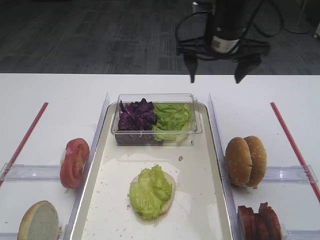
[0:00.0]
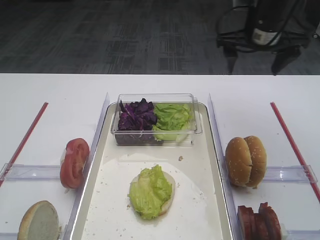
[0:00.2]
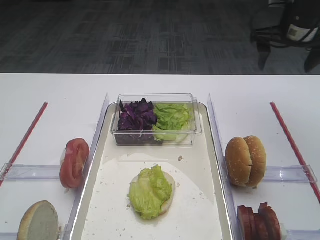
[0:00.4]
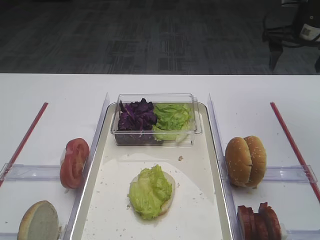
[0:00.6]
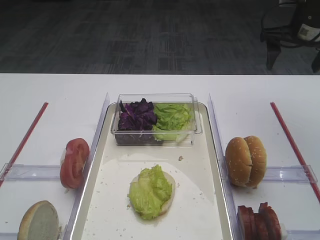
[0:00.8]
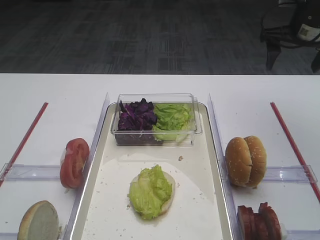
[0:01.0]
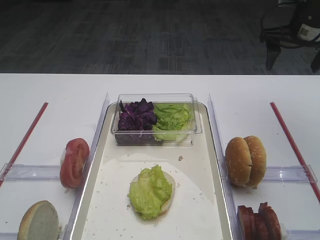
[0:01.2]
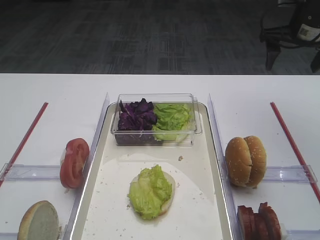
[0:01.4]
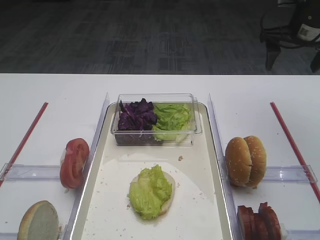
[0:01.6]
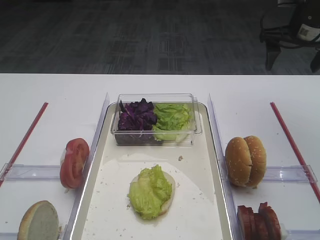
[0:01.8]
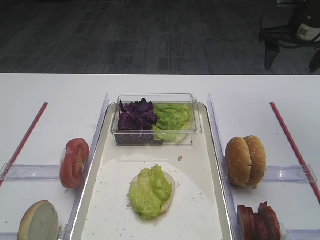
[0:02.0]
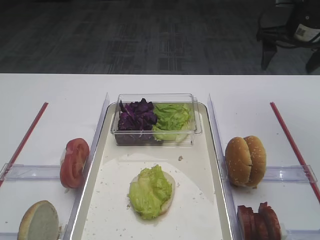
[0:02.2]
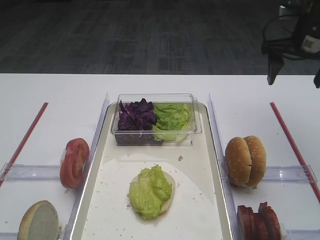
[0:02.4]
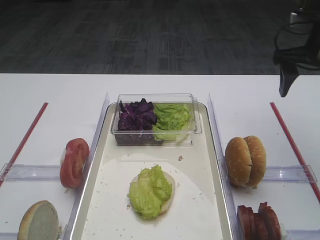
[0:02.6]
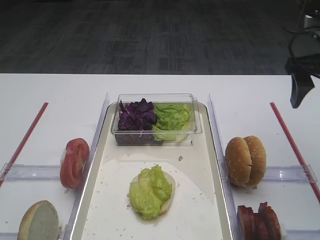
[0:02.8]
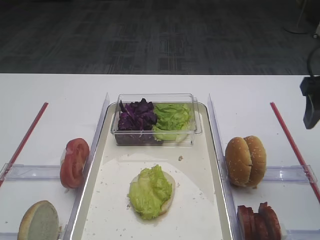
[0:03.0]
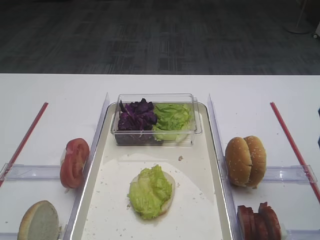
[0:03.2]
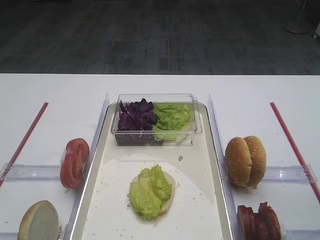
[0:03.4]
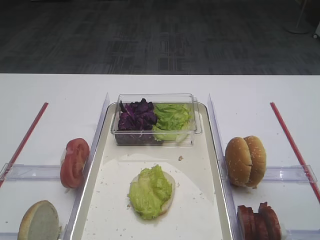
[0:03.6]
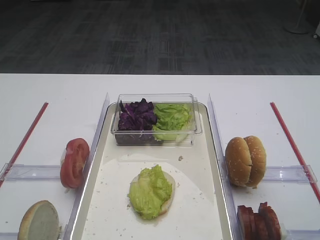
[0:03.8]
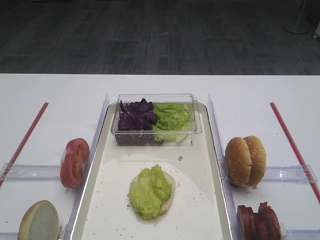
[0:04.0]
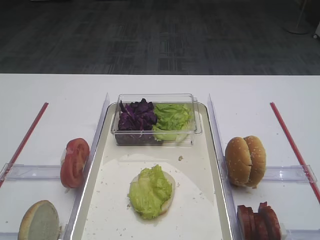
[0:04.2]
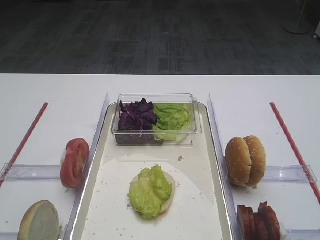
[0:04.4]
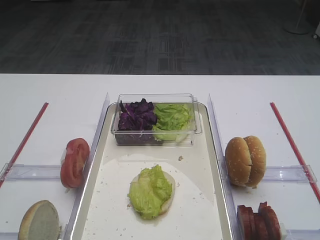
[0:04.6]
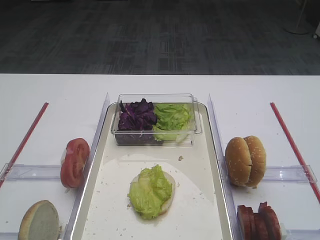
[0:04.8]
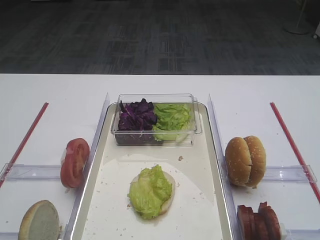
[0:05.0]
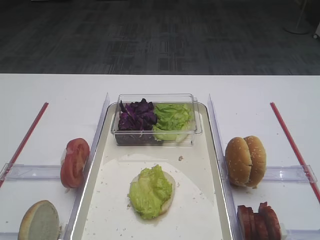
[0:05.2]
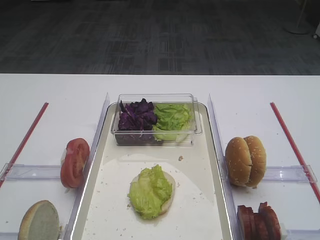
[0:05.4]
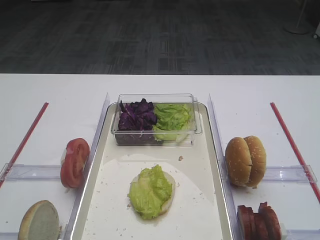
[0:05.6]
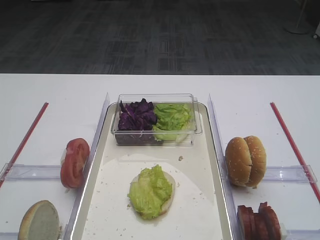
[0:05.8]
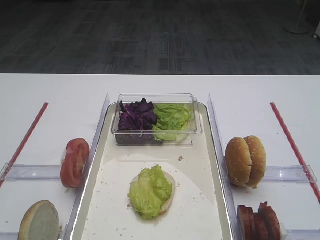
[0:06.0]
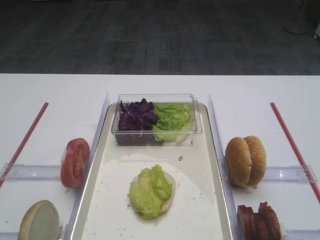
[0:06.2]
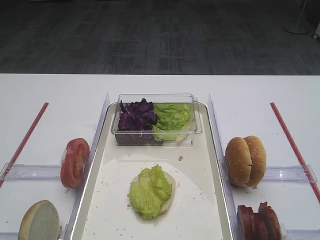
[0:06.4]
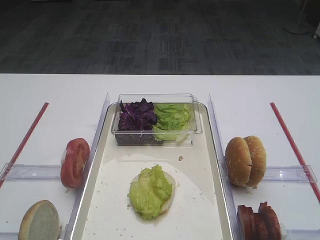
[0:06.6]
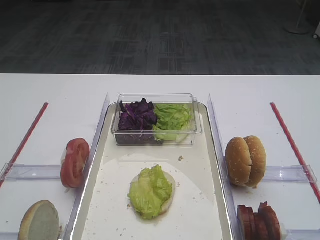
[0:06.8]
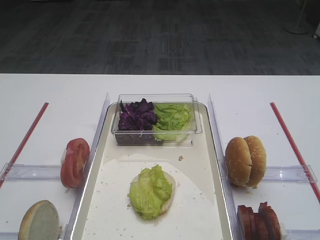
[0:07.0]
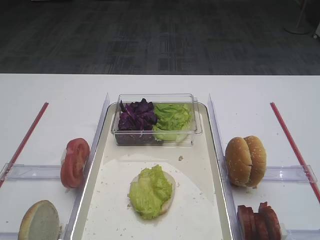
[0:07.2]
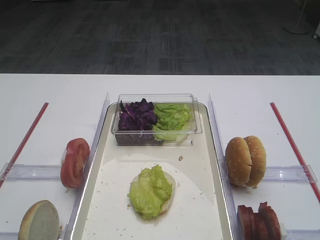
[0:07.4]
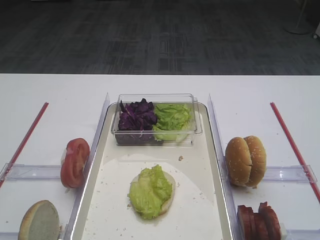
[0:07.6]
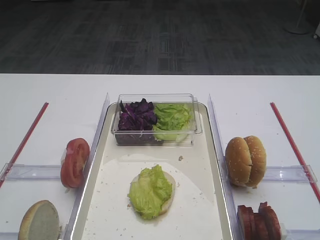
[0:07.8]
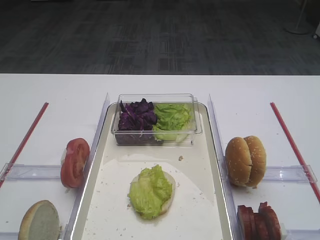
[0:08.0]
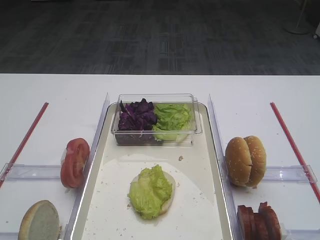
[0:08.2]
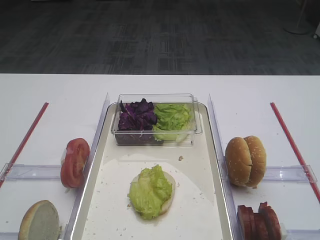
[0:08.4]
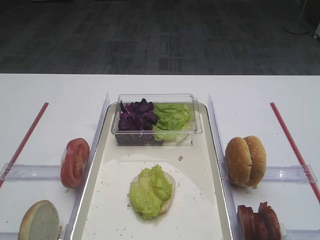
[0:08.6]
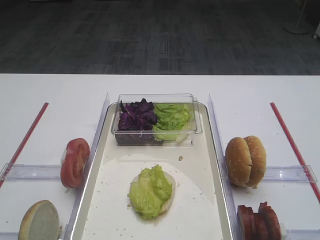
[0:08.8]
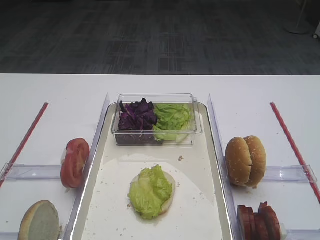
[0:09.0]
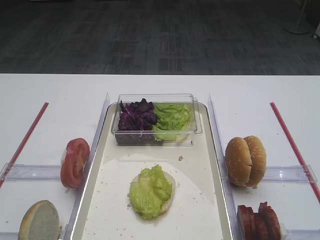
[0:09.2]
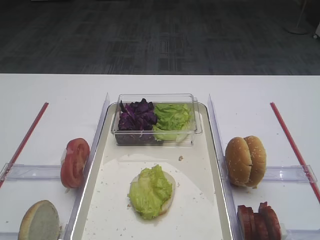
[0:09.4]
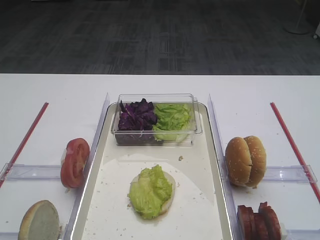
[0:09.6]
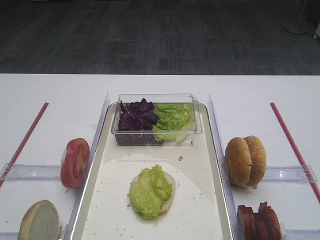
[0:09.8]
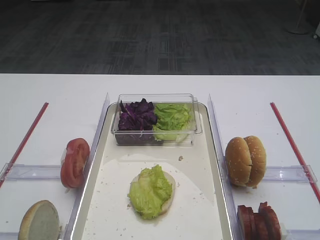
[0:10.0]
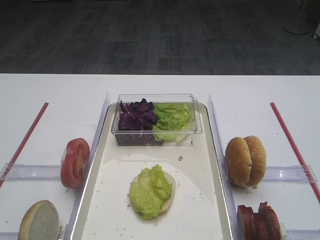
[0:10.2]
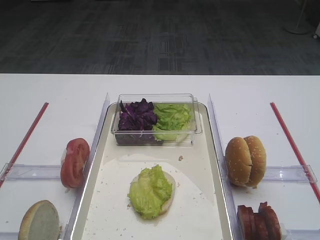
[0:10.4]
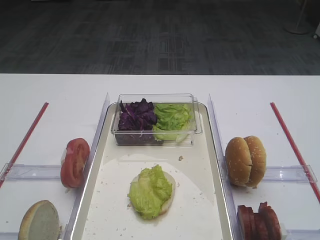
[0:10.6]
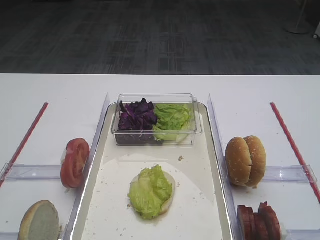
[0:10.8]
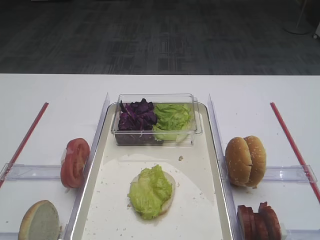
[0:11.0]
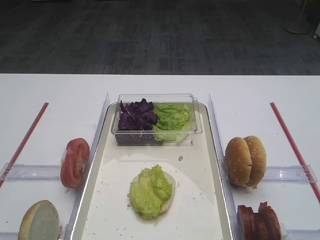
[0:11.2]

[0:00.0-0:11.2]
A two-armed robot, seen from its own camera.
0:00.0 to 0:01.6: The right gripper heads to the right, covering approximately 15 cm.
0:01.6 to 0:03.2: The right gripper shifts some 20 cm backward.
0:03.2 to 0:04.8: The right gripper shifts approximately 20 cm backward.
0:04.8 to 0:11.2: Both grippers stay about where they are.

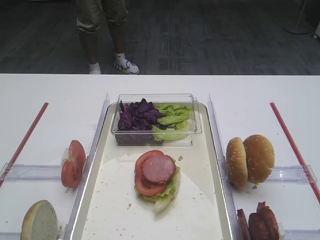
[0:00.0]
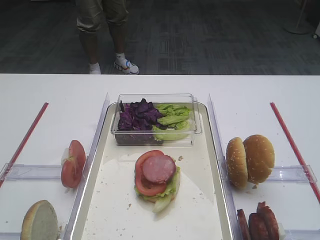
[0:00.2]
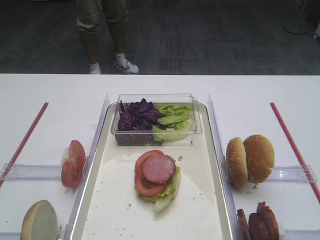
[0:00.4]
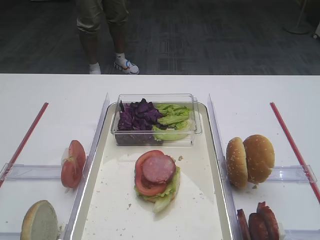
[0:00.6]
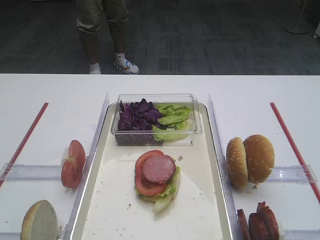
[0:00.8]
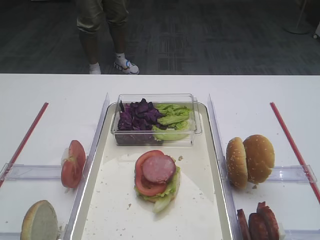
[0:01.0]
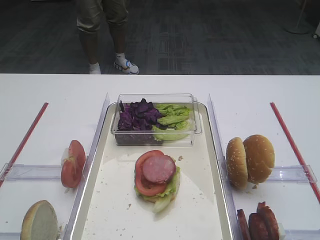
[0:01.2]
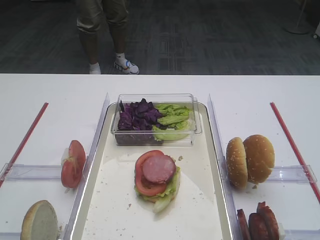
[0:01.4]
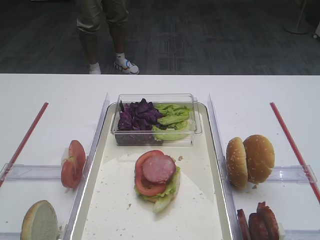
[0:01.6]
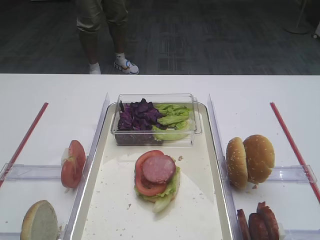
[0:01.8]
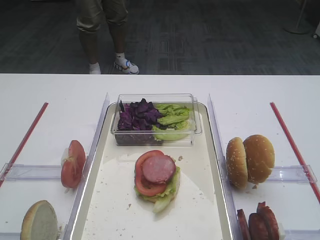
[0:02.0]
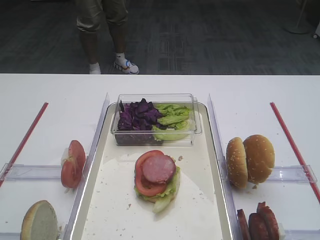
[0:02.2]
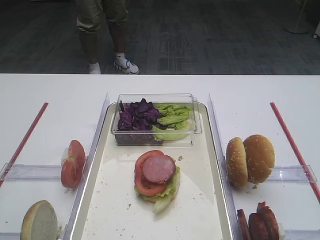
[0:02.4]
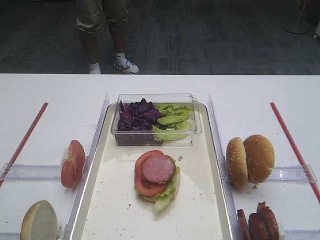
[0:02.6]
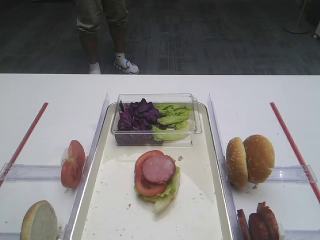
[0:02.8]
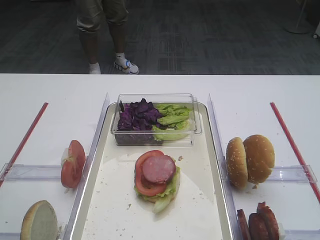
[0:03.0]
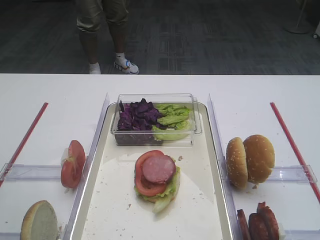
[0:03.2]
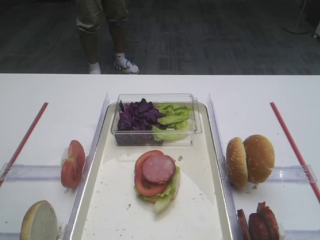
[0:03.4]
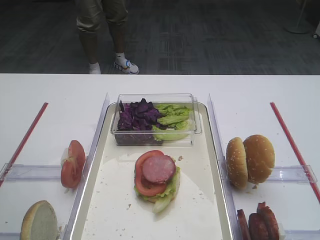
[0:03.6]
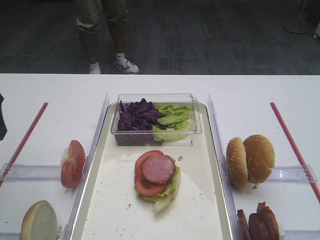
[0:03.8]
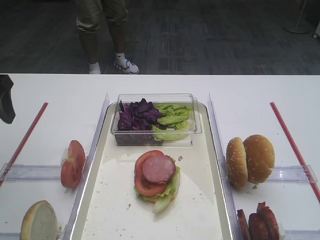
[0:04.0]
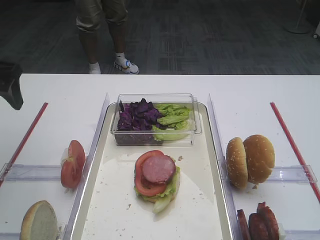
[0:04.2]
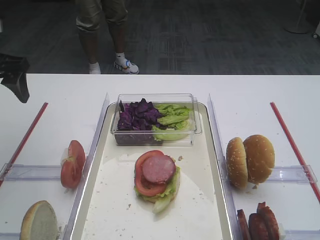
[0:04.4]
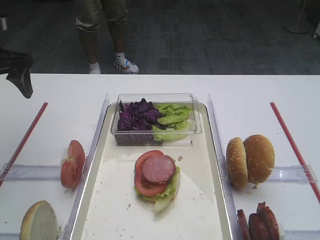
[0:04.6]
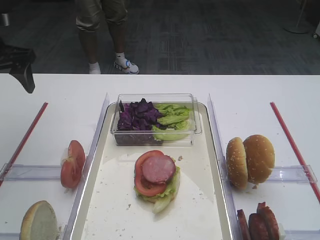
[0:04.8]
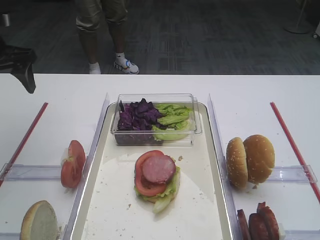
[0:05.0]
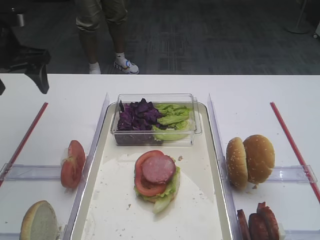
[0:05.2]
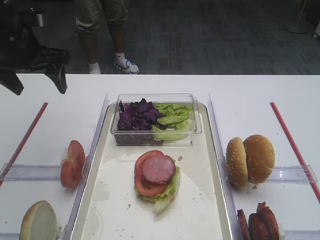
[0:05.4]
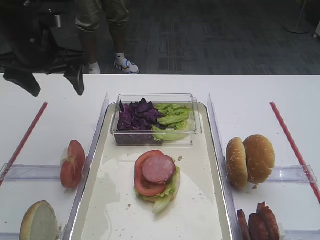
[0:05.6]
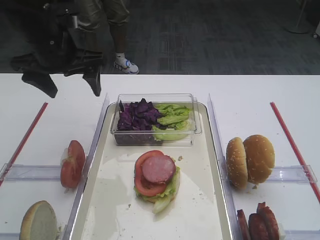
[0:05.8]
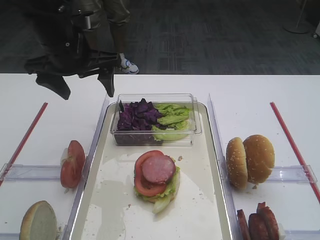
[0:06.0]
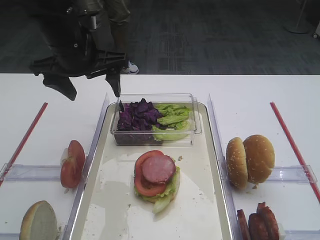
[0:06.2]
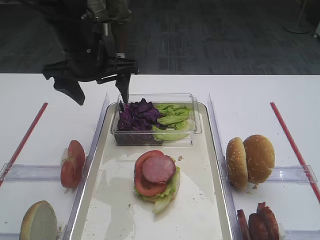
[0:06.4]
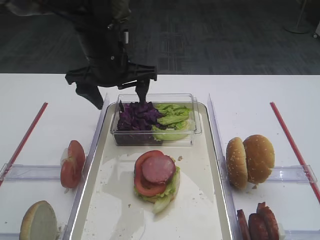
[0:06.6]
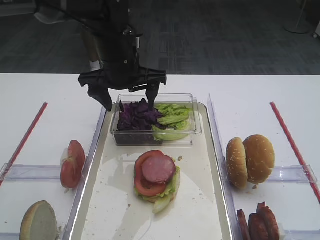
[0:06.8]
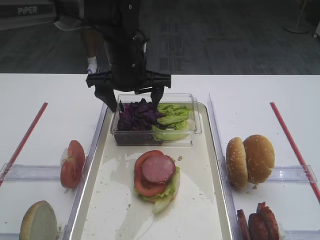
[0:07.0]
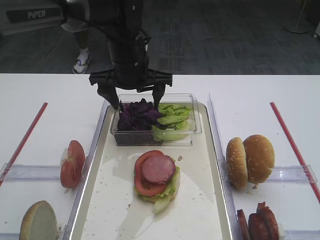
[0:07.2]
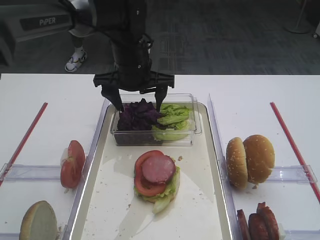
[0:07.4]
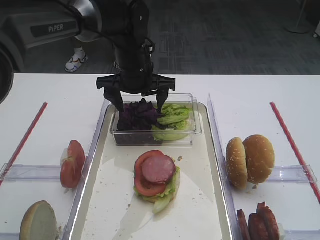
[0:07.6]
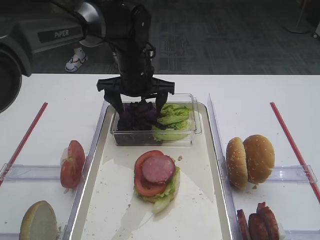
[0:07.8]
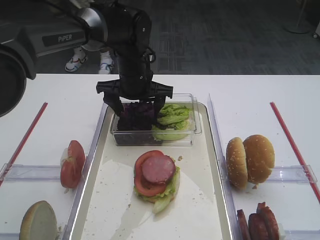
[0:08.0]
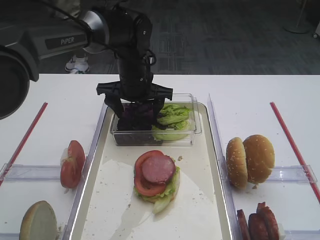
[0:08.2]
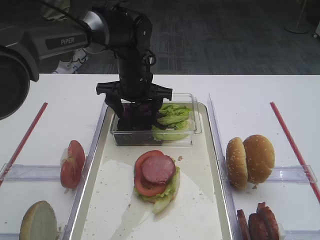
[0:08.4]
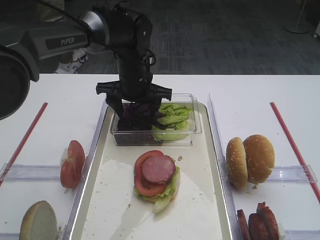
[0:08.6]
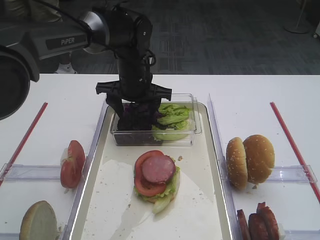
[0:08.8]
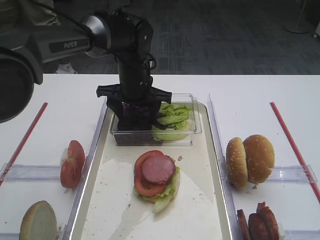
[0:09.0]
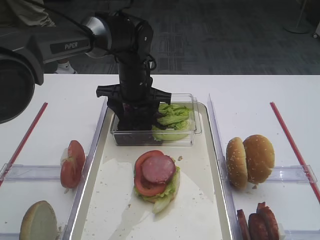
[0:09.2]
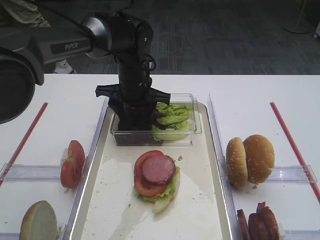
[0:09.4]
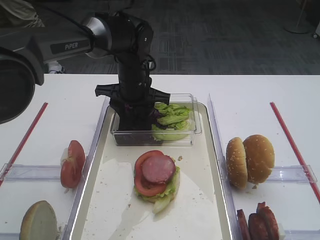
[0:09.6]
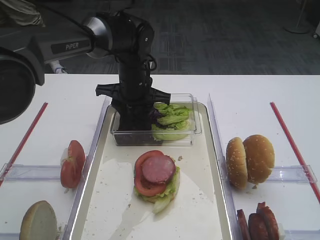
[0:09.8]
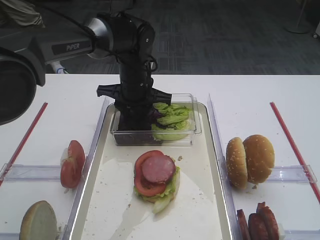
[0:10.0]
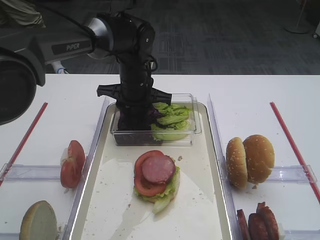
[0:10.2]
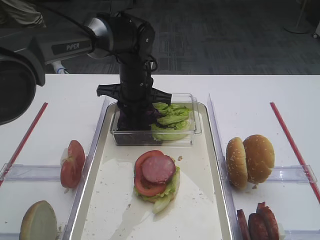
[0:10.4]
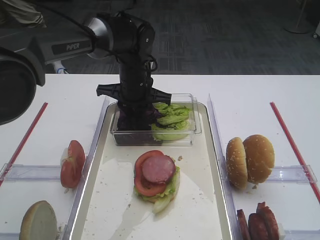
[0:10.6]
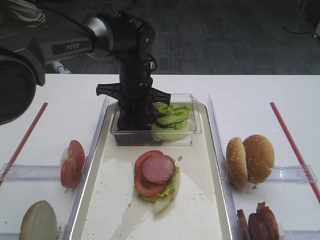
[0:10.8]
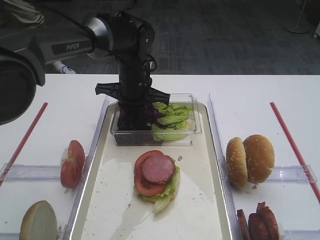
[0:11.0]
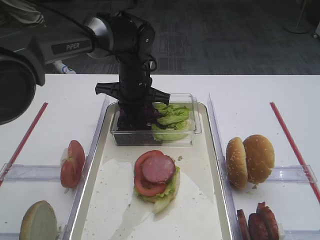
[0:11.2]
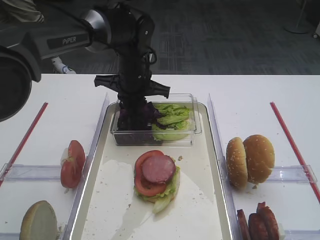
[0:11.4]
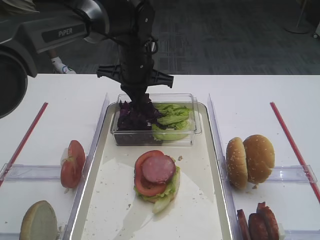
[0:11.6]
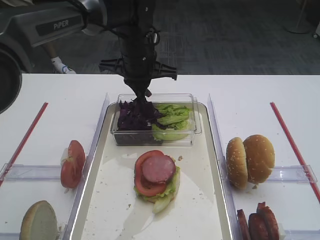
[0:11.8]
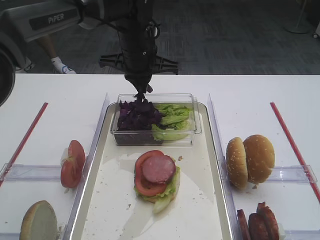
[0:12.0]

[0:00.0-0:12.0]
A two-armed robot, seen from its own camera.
0:03.0 to 0:04.4: The left gripper moves forward, approximately 20 cm.
0:04.4 to 0:06.0: The left gripper shifts some 15 cm to the right.
0:06.0 to 0:07.6: The left gripper goes roughly 15 cm to the right, downward and forward.
0:07.6 to 0:09.0: The right gripper closes up.
0:09.0 to 0:10.4: The left gripper closes.
0:10.4 to 0:12.0: The left gripper heads upward, covering about 5 cm.
